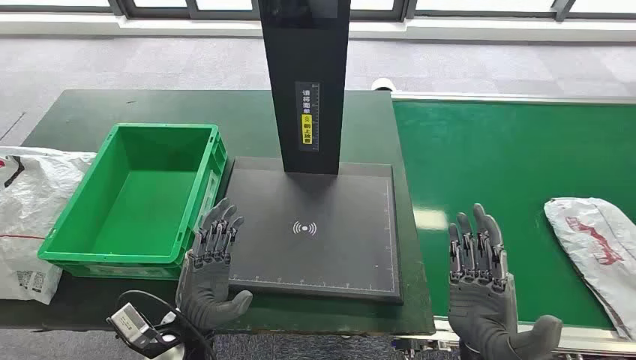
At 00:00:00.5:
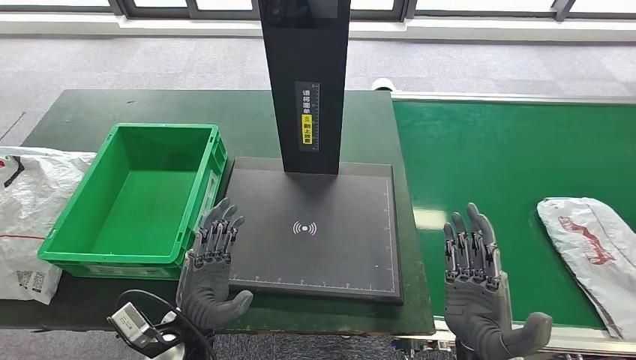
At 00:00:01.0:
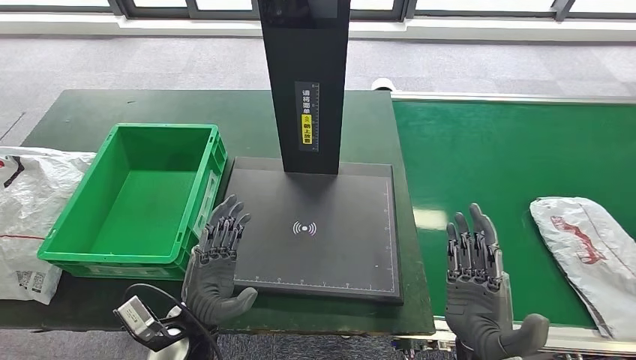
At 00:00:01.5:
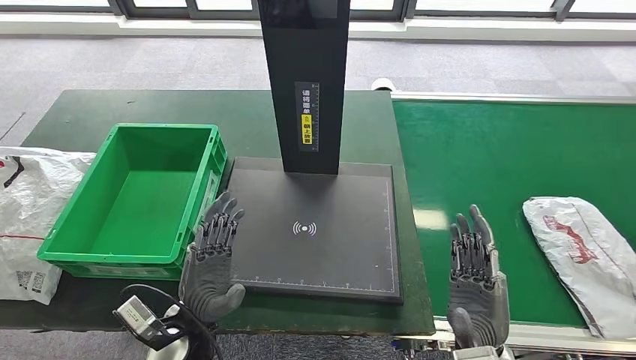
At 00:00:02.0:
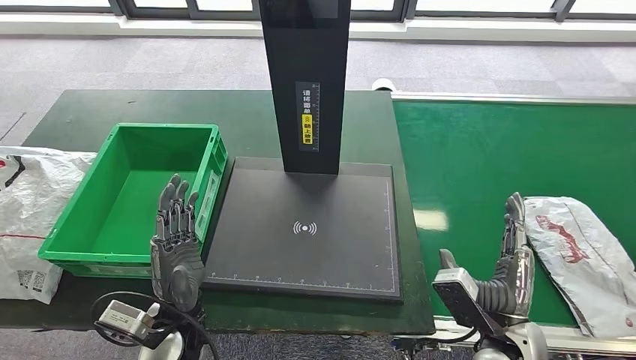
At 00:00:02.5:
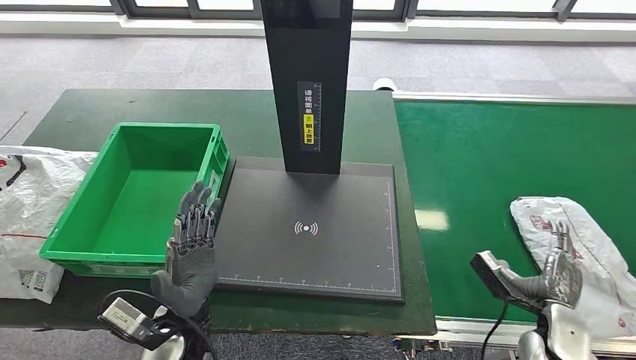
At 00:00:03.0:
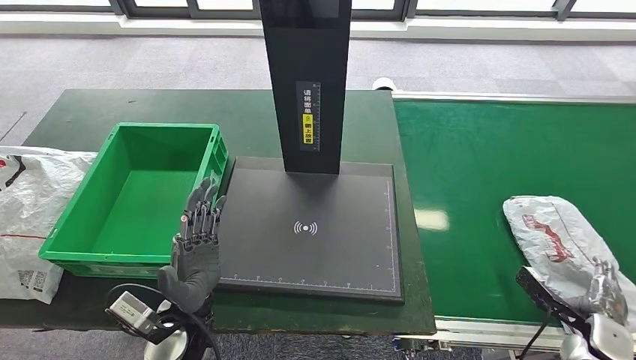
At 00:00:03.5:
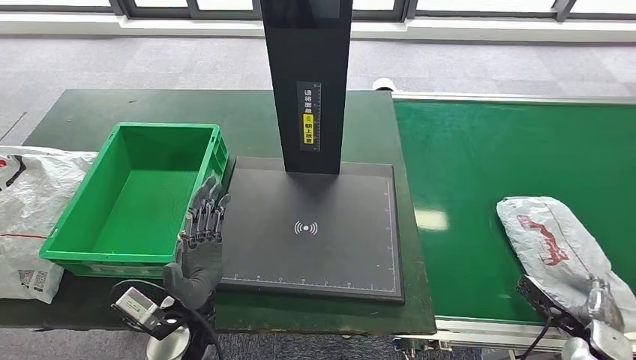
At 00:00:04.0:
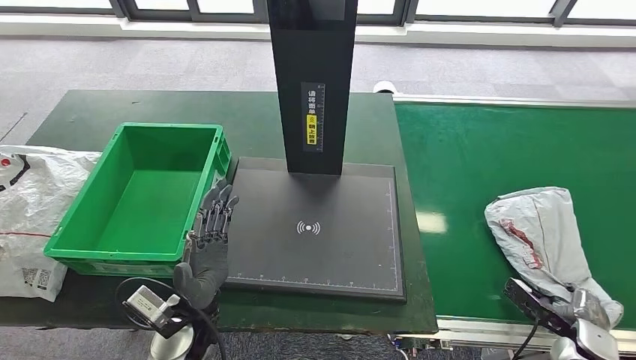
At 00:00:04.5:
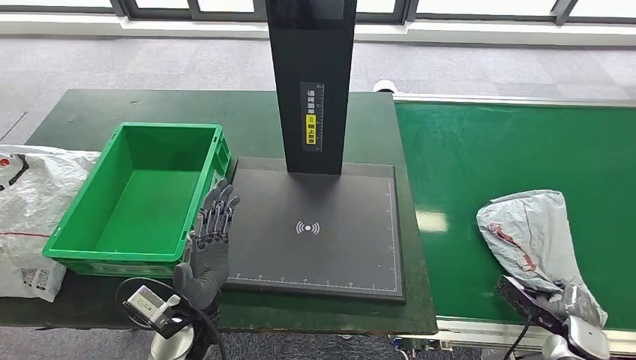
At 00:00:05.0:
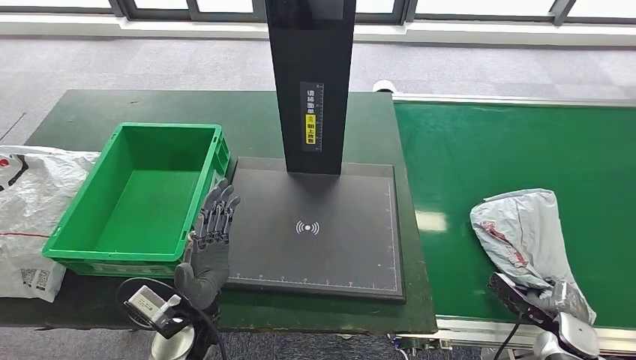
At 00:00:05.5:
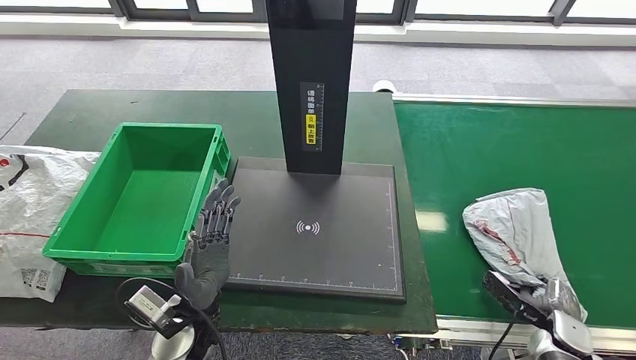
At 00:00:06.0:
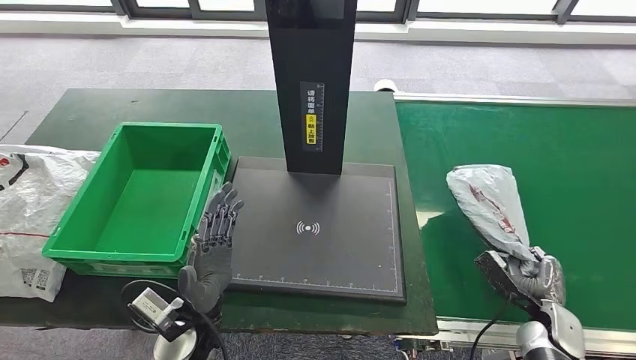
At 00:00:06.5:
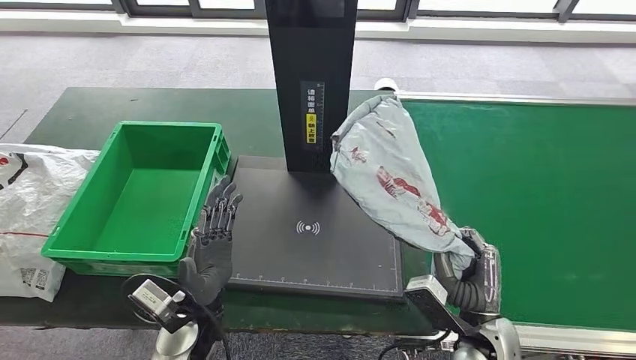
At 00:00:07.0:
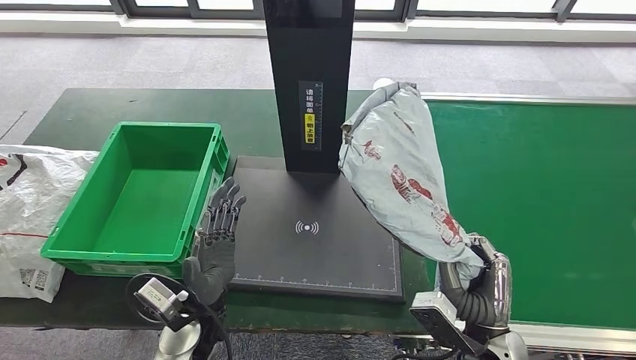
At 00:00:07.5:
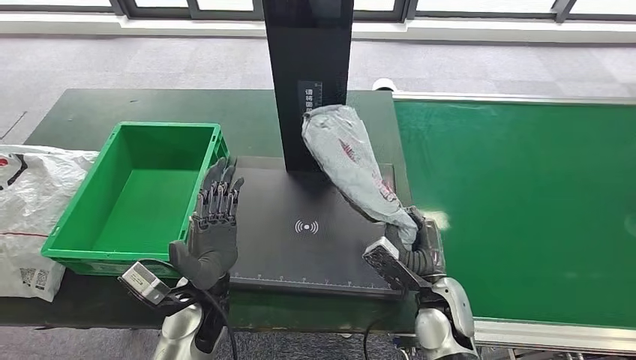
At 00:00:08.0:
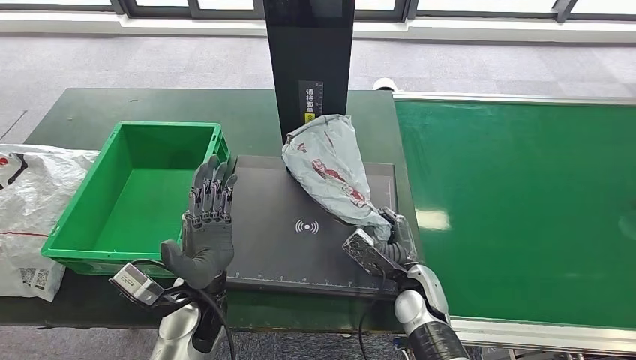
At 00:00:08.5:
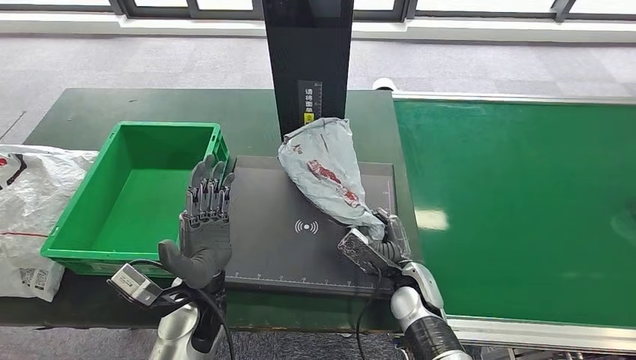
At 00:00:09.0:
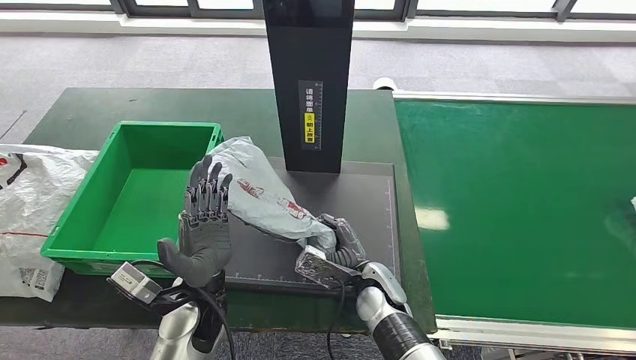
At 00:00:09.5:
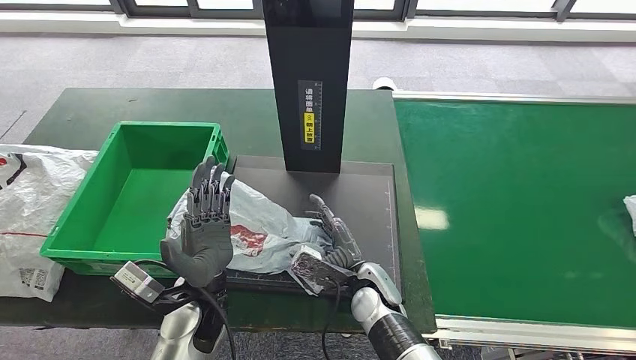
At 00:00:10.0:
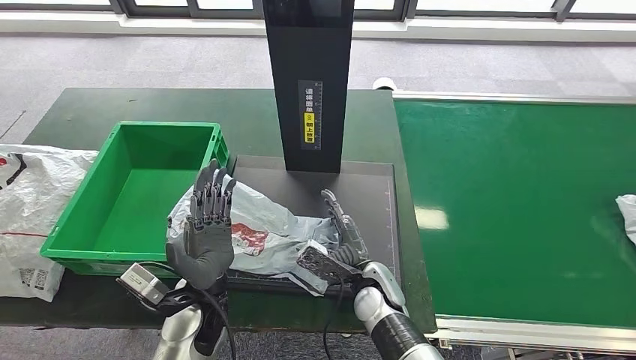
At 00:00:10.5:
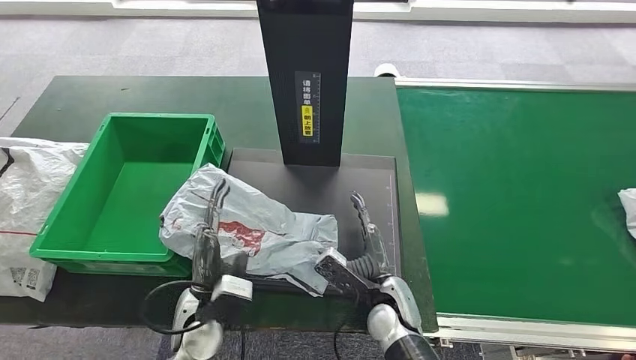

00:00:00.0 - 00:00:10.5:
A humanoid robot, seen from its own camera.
Step, 00:00:00.0 - 00:00:06.0: Take the parcel off the conveyor belt.
Step, 00:00:06.5 - 00:00:10.5: Place the parcel onto the inbound machine.
